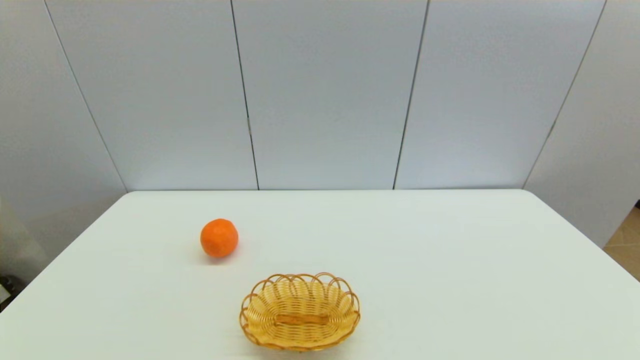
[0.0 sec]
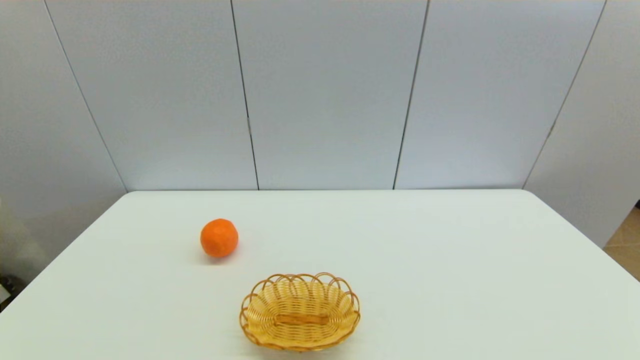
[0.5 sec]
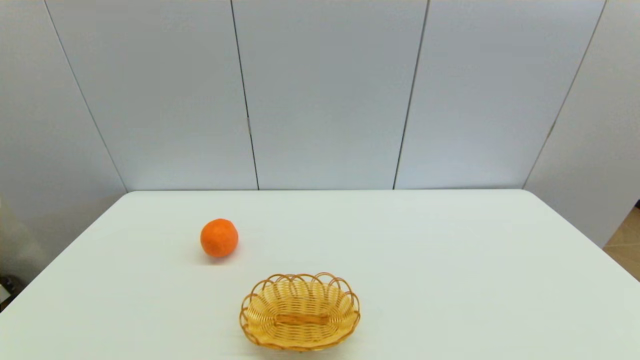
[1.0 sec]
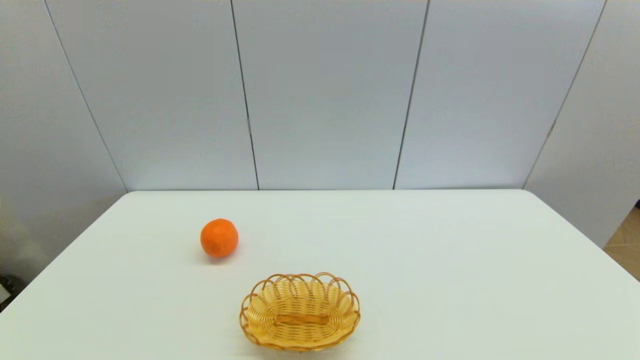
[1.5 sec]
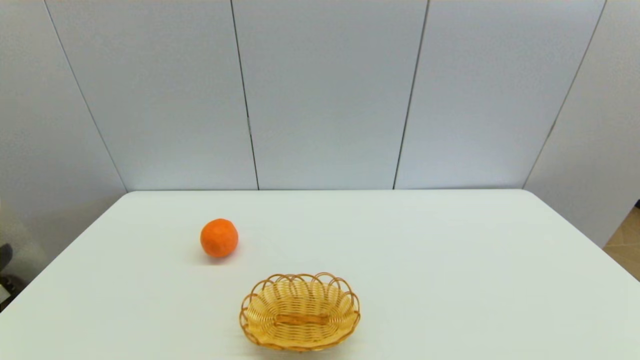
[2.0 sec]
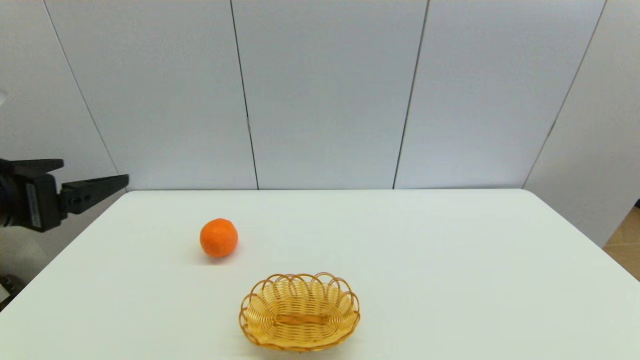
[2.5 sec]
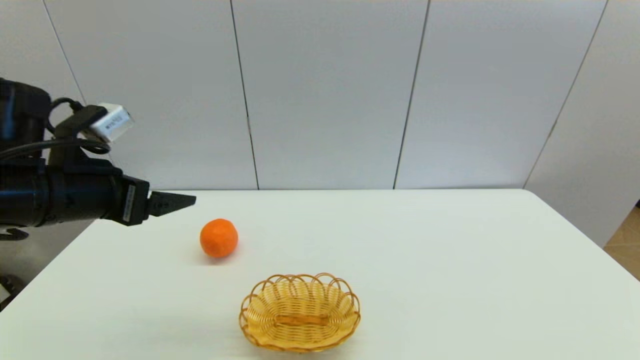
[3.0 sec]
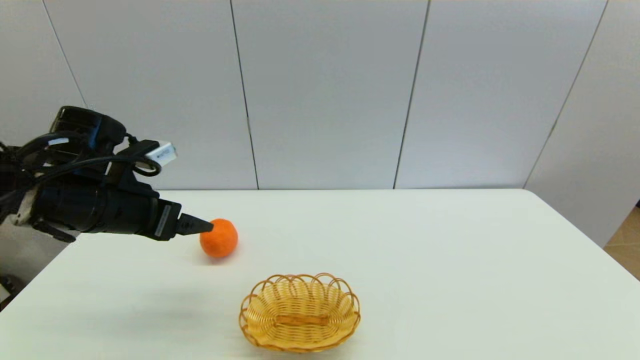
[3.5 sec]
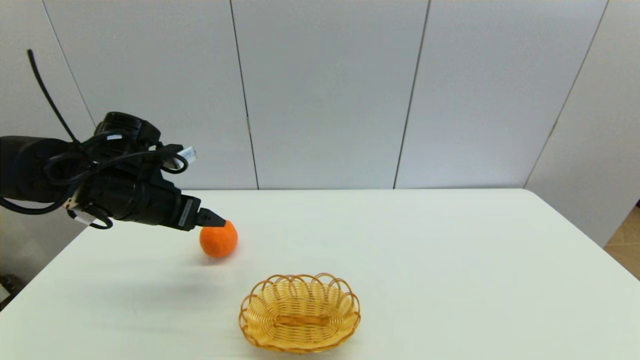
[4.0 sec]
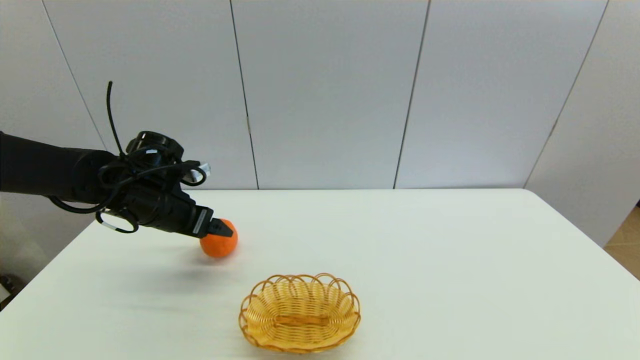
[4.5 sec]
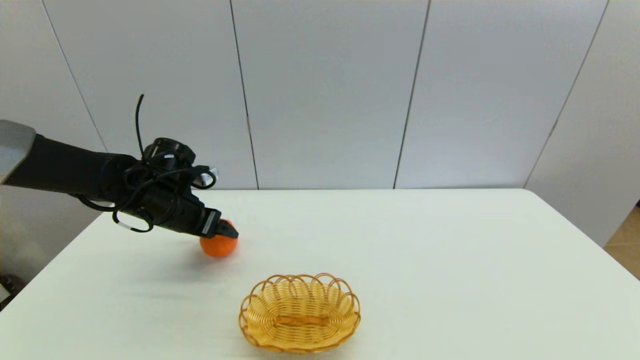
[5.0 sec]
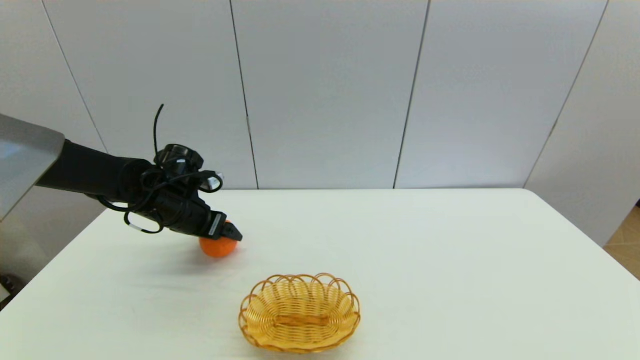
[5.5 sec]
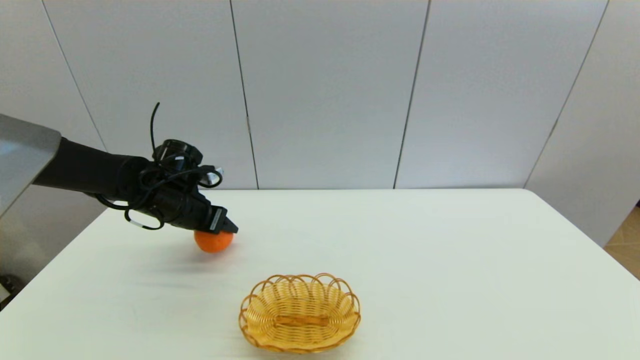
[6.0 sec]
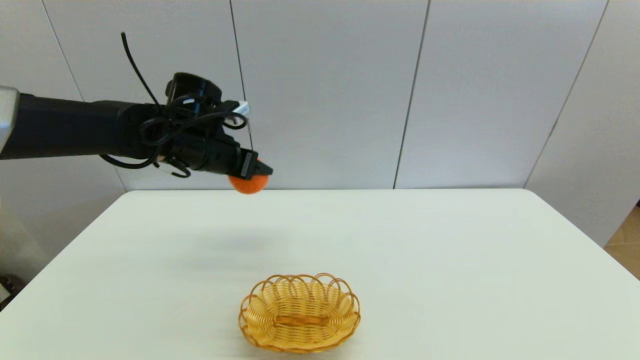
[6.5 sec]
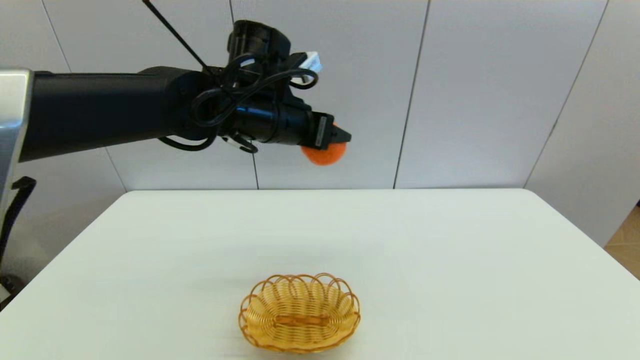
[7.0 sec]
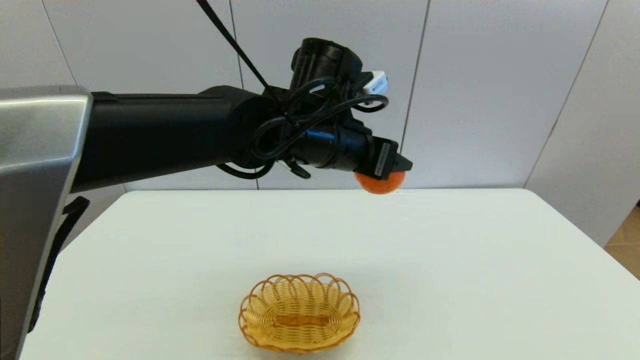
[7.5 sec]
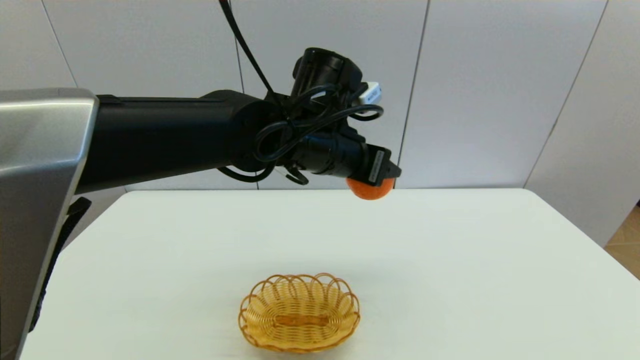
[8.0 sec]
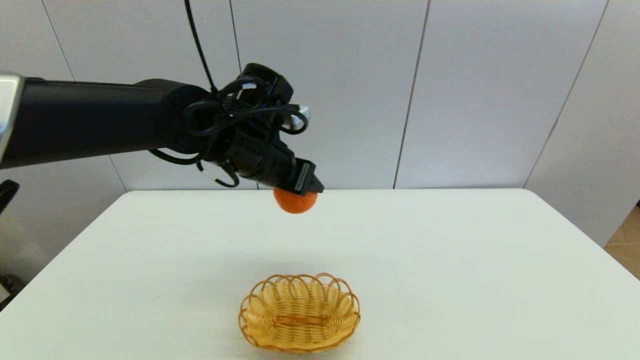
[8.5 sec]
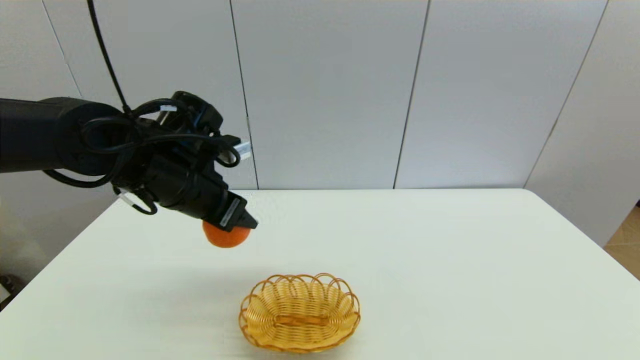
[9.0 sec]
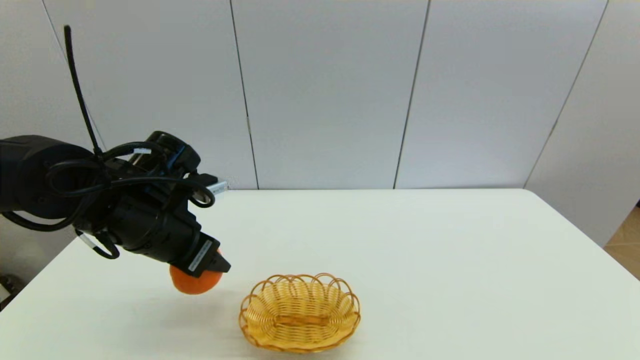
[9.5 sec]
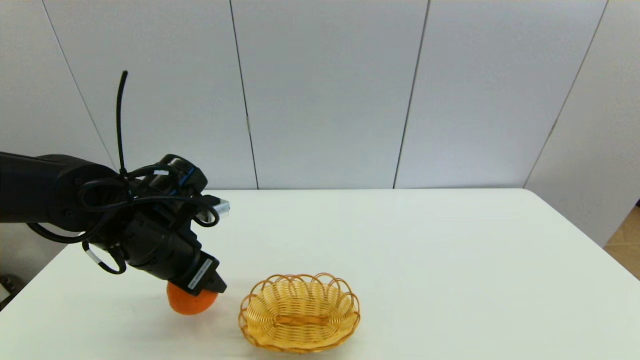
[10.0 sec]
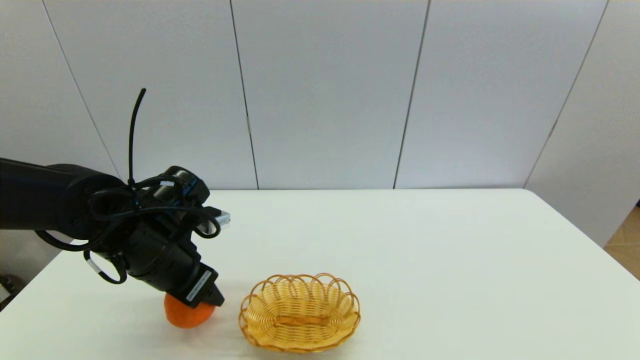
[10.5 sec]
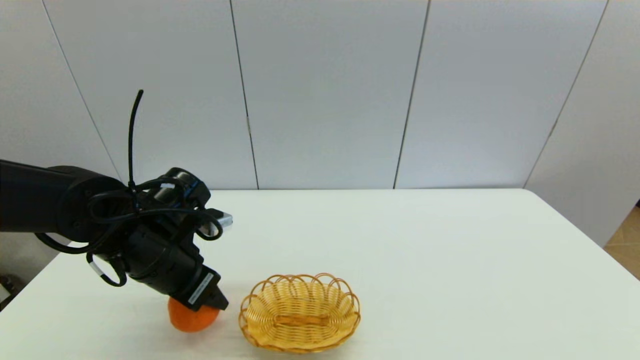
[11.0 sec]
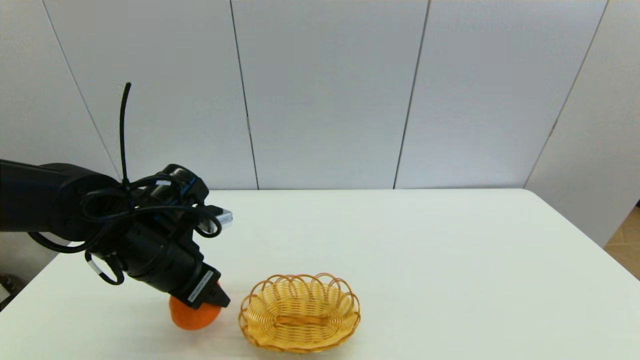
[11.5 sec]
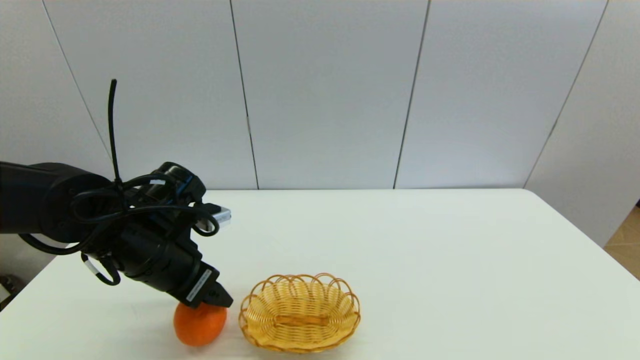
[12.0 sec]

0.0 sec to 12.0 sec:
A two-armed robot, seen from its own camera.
Step, 2.0 sec to 5.5 sec: Grasp the orange with left gripper.
Step, 6.0 sec to 12.0 sec: Place the orange on the table with left gripper.
2.0 sec to 4.0 sec: The left gripper moves forward, some 25 cm.
4.0 sec to 6.0 sec: The left gripper shifts approximately 10 cm forward and downward, and closes up.
6.0 sec to 8.0 sec: The left gripper travels to the right and upward by roughly 25 cm.
8.0 sec to 10.0 sec: The left gripper travels to the left and downward by approximately 20 cm.
10.0 sec to 12.0 sec: The left gripper opens.

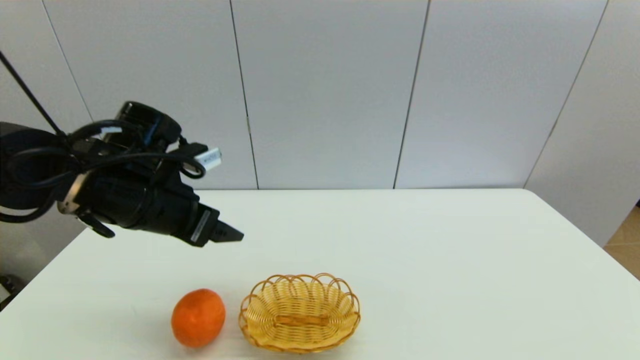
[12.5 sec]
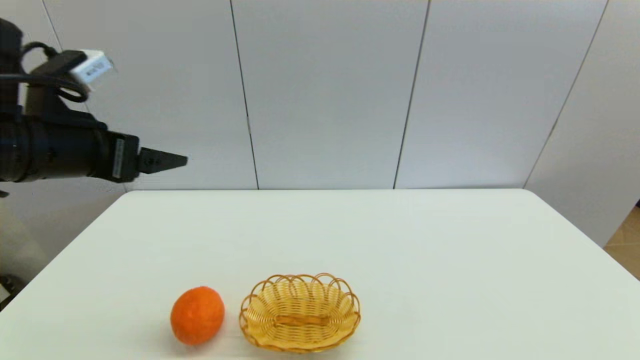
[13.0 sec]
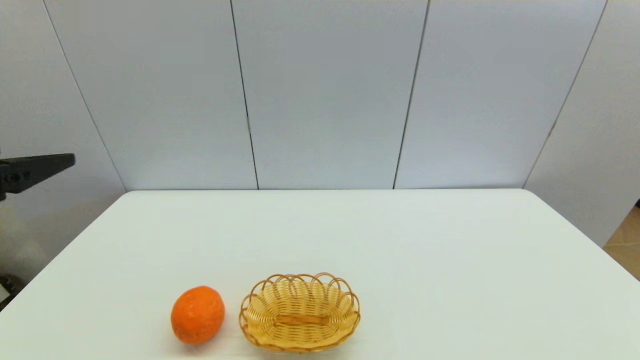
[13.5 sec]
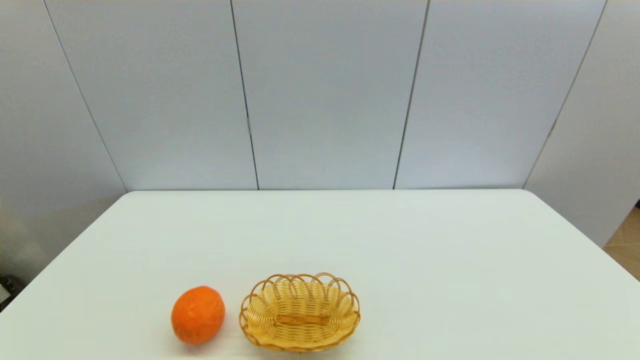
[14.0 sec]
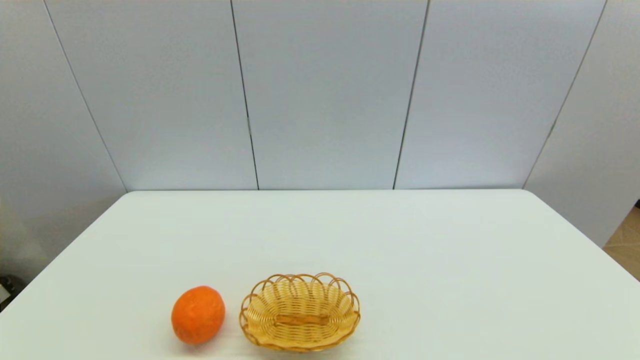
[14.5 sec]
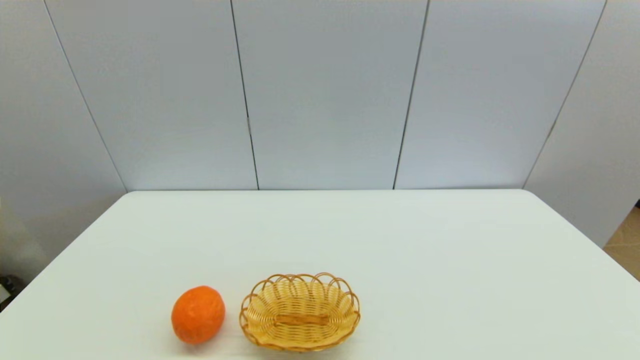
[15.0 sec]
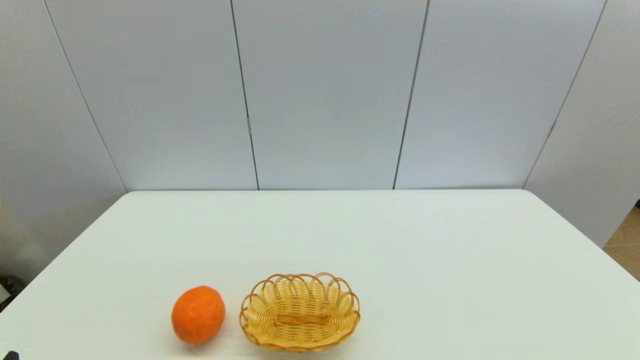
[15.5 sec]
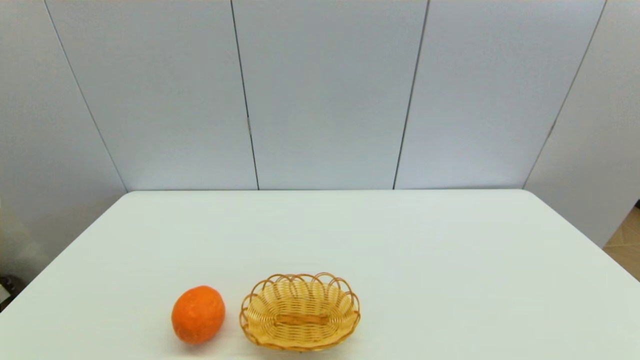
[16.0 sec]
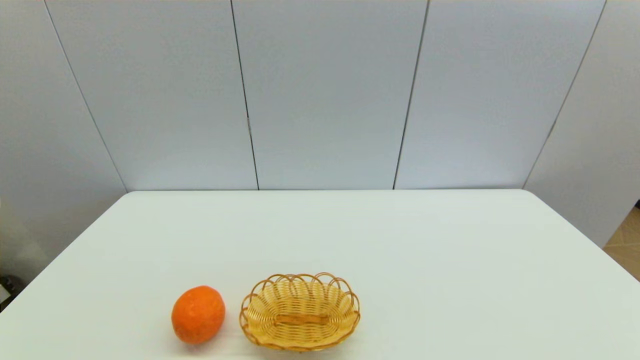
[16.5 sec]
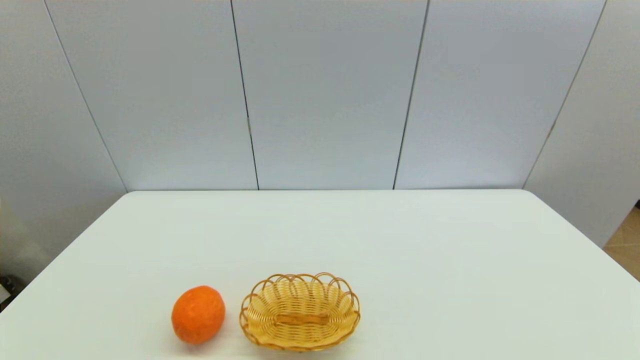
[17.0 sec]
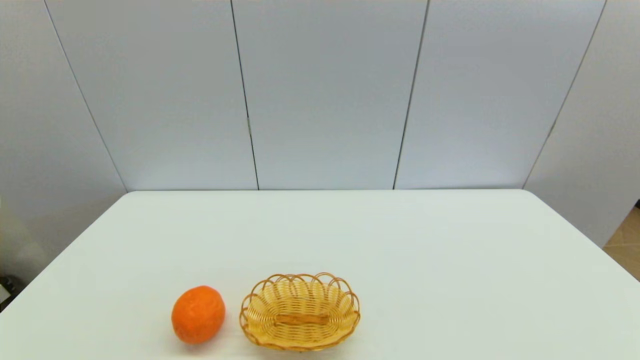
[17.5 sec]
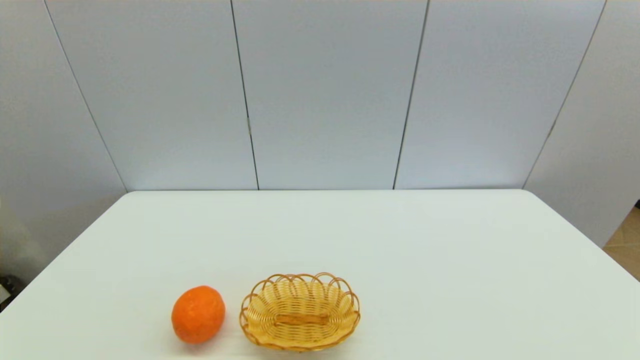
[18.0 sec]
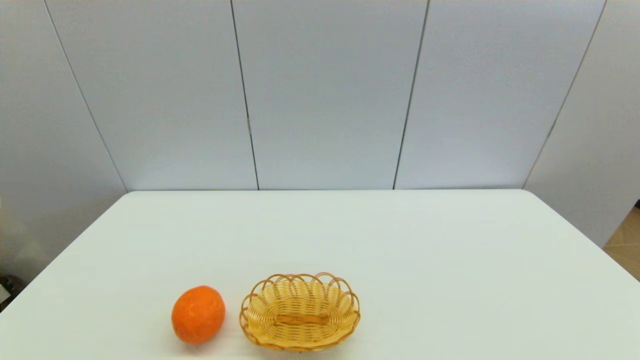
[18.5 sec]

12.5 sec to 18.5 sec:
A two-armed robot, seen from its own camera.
12.5 sec to 14.5 sec: The left gripper travels backward by approximately 25 cm.
16.5 sec to 18.5 sec: Both grippers stay put.
